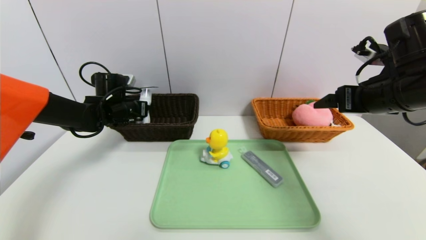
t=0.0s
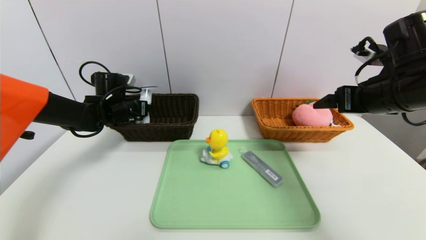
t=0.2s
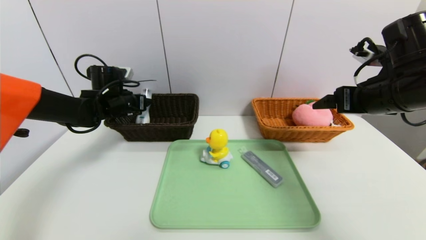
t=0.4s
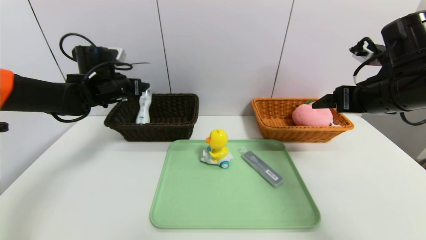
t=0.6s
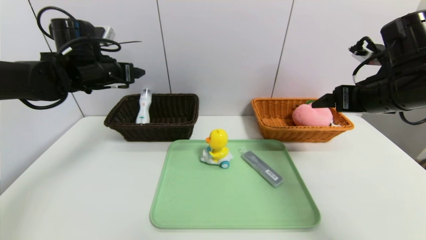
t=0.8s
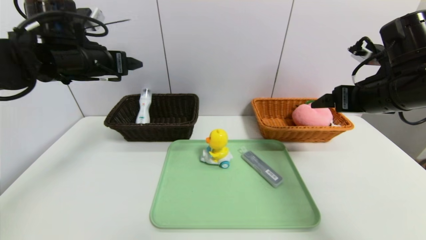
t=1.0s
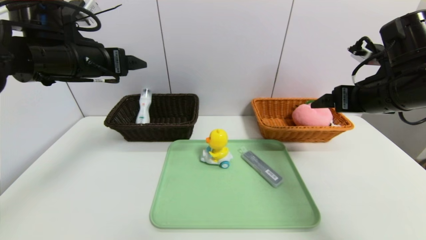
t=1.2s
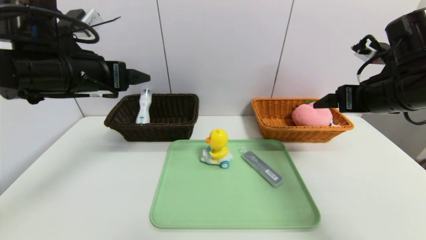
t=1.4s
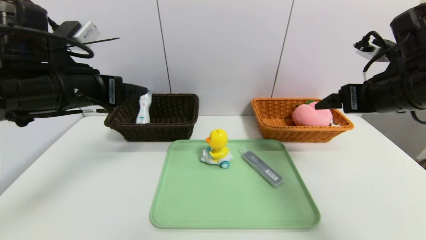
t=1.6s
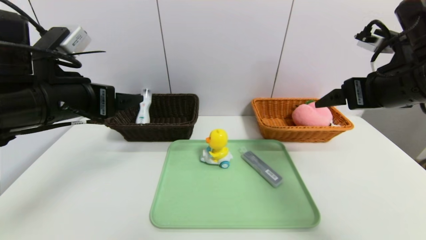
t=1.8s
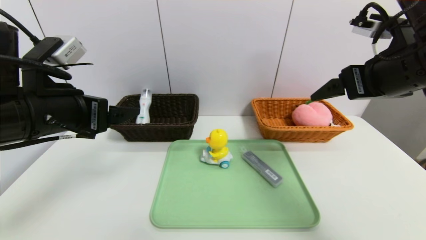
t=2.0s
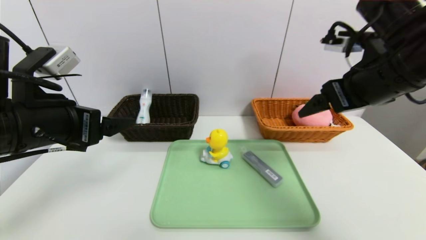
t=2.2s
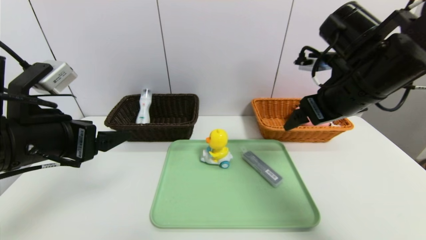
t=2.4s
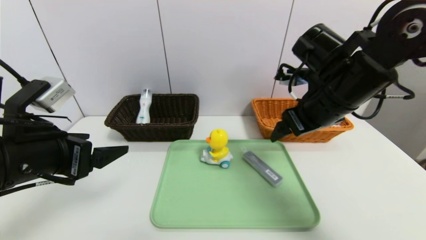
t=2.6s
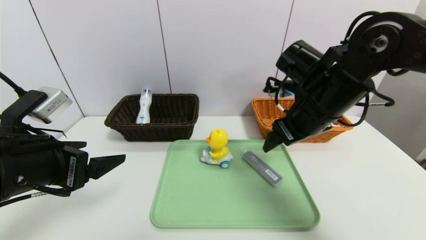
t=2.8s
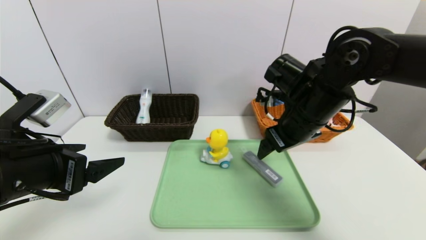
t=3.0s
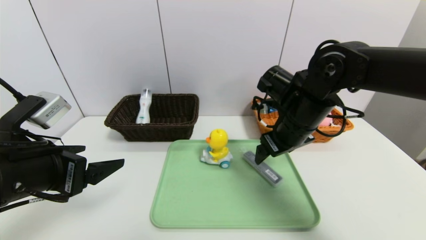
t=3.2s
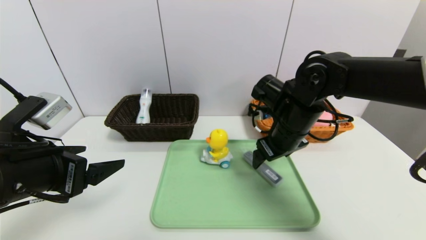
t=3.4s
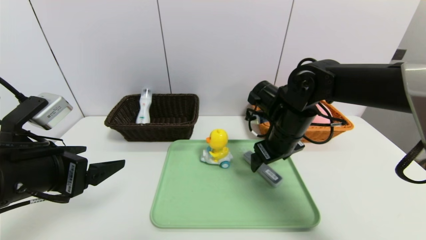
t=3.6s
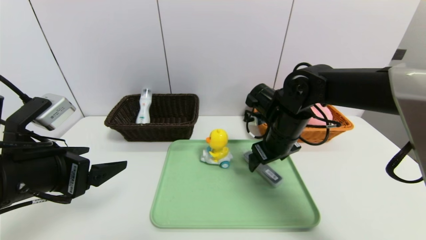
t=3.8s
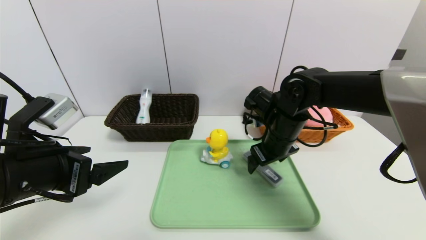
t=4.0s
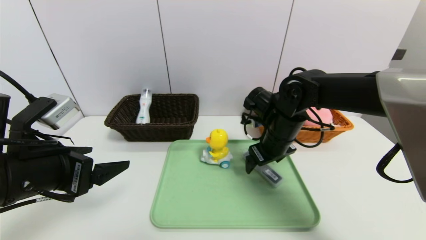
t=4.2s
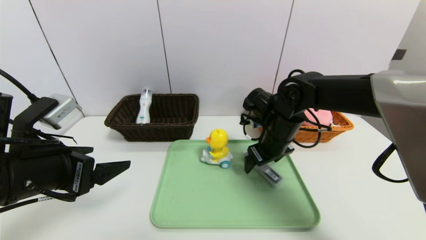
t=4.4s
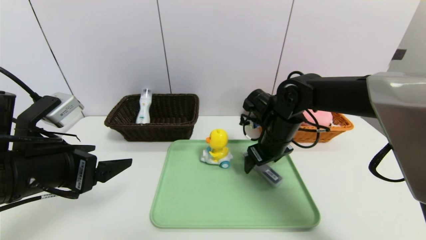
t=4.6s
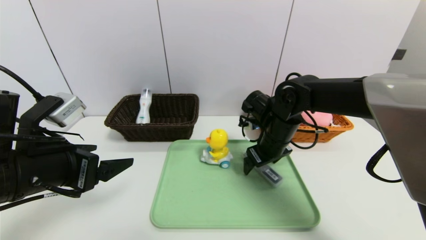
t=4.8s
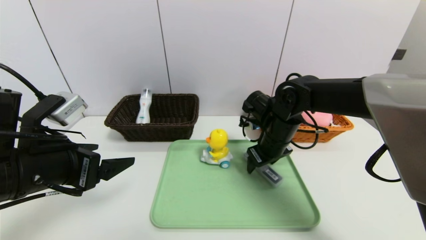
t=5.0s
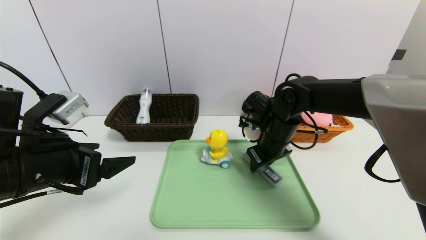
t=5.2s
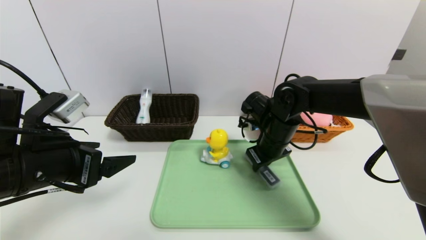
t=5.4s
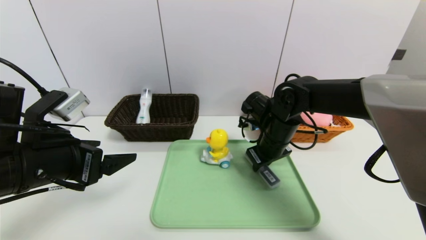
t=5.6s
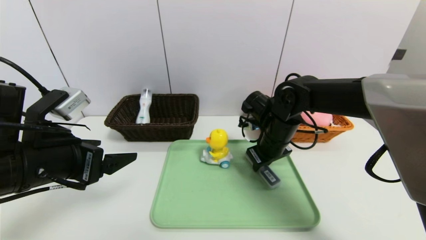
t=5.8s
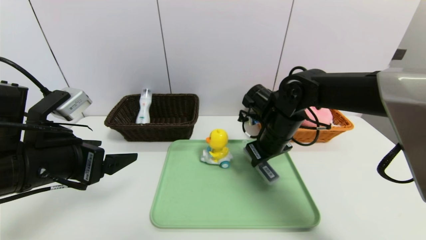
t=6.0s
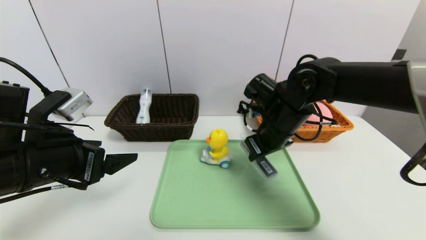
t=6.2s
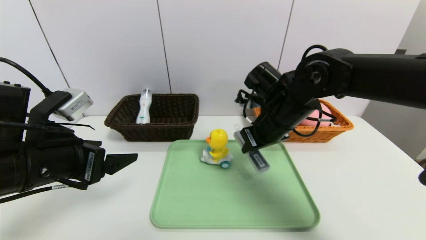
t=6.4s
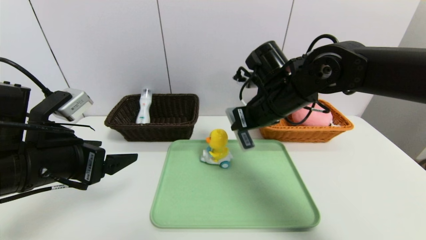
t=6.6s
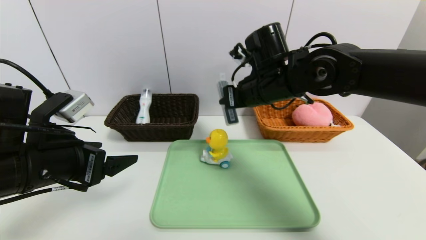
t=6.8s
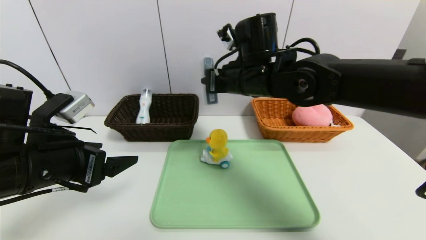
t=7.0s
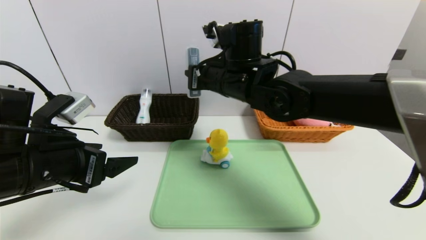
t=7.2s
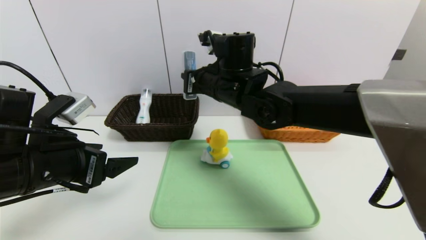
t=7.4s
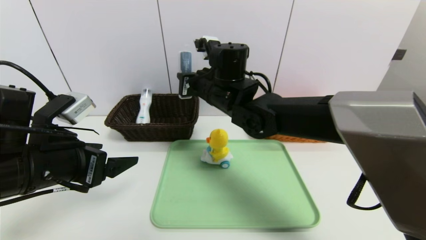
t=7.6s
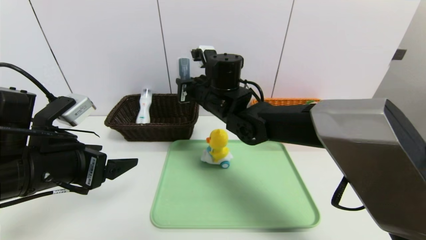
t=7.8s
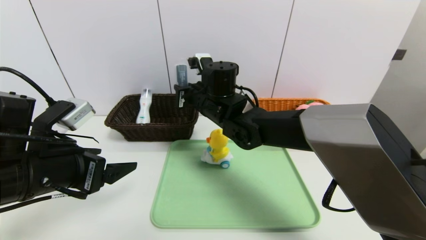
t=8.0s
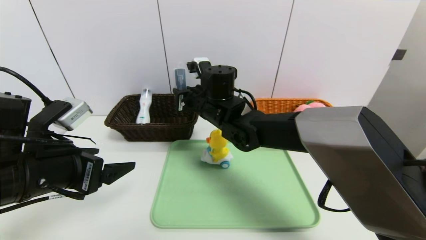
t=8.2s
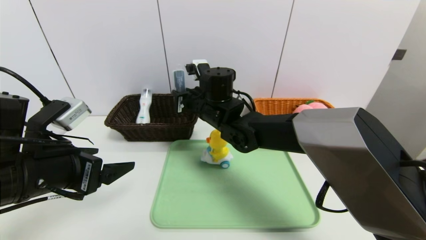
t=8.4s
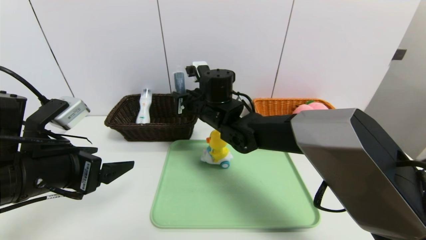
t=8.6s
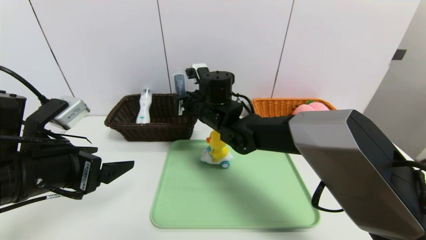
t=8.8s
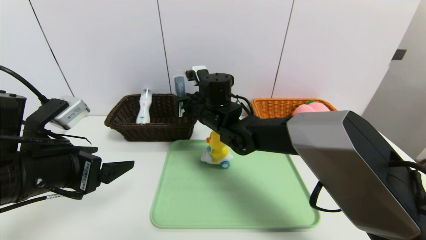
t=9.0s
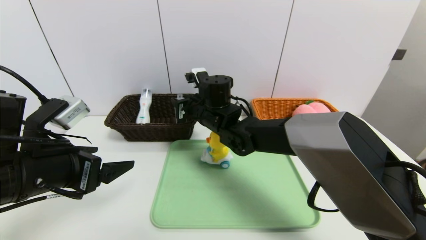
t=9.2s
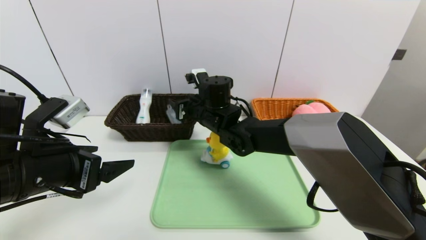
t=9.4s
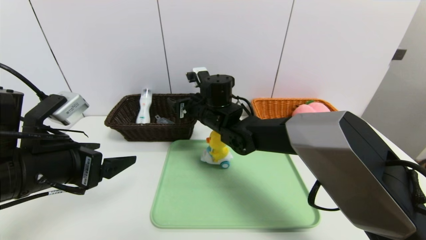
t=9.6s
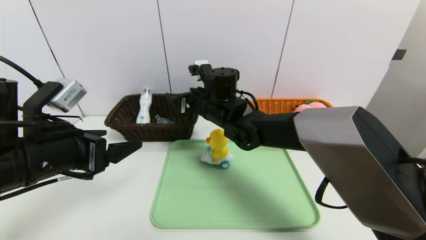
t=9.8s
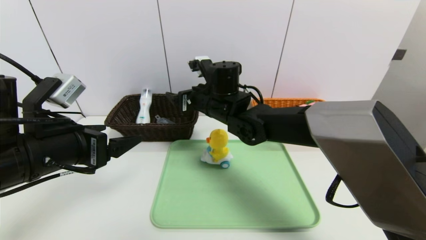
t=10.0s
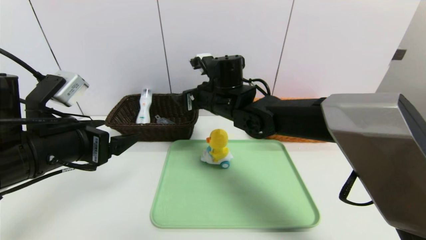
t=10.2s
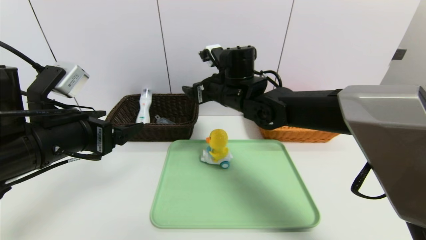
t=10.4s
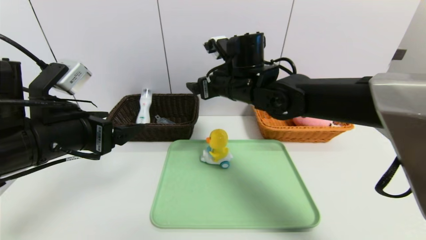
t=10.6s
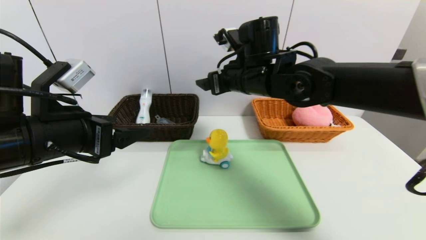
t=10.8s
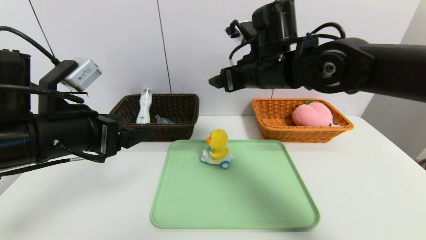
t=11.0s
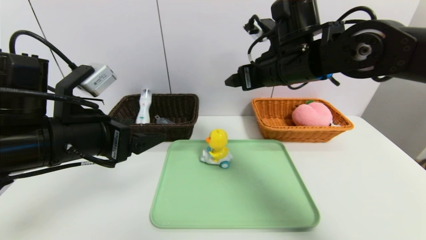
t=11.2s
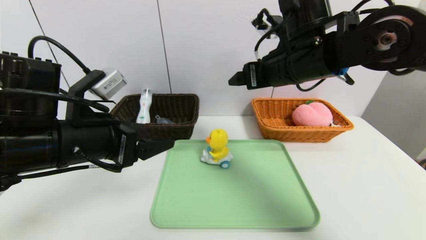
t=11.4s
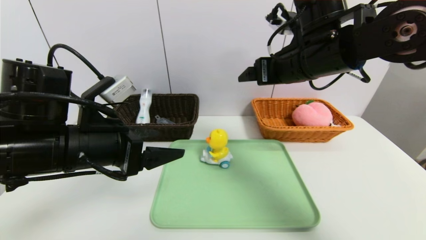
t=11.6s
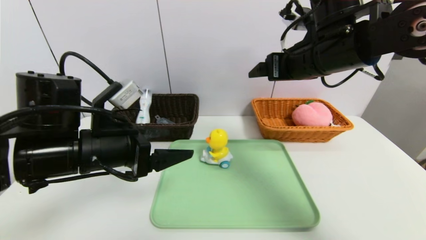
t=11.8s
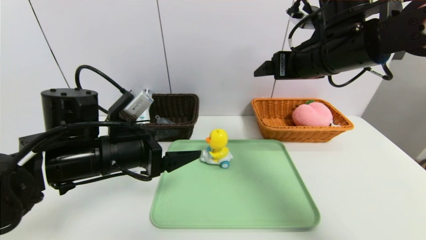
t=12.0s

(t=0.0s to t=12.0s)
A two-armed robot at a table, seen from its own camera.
Task of the whole recording: place the food in the right basket with the right gripper, and place the non food items in the left basket with the left gripper.
Step, t=0.6s - t=9.6s: Grasp the compass and put it in the left basket.
t=0.0s - t=1.6s: The left gripper travels backward and upward by some 25 cm, and opens up.
t=1.6s - t=3.0s: The left gripper moves backward and downward, about 10 cm, while the right gripper moves to the left and downward, about 15 cm.
t=3.0s - t=4.4s: The right gripper travels downward by approximately 10 cm.
t=4.4s - t=6.0s: The right gripper closes.
t=6.0s - t=7.6s: The right gripper shifts about 15 cm to the left and upward.
t=7.6s - t=9.0s: The right gripper is displaced downward by approximately 5 cm.
t=9.0s - t=10.4s: The right gripper travels upward and to the right by some 10 cm, and opens up.
t=10.4s - t=12.0s: The right gripper heads to the right, upward and backward, covering about 20 cm; the left gripper travels to the right and downward by approximately 10 cm.

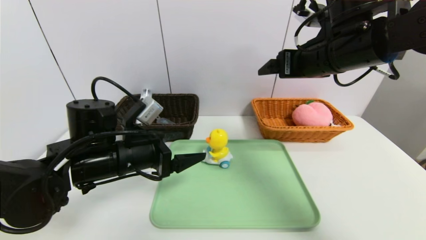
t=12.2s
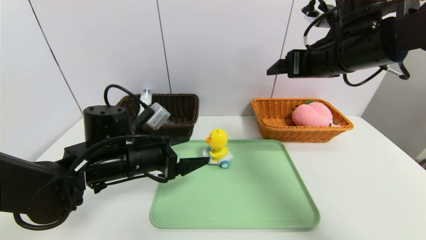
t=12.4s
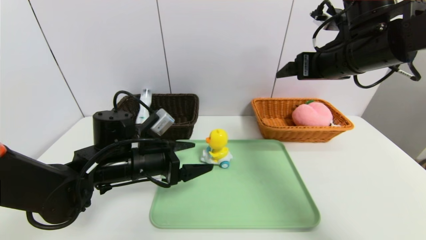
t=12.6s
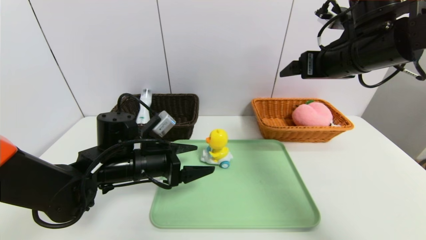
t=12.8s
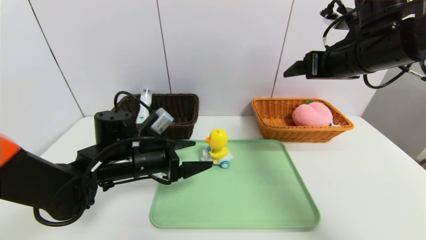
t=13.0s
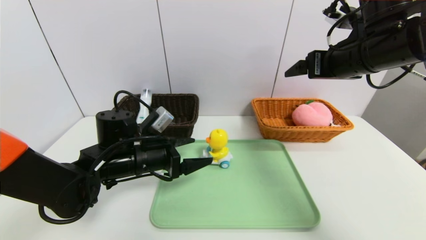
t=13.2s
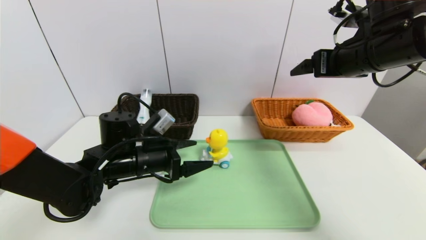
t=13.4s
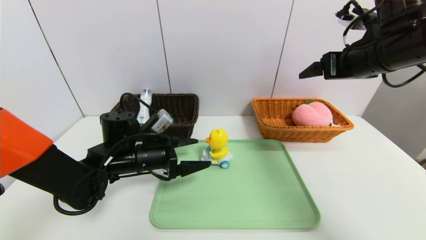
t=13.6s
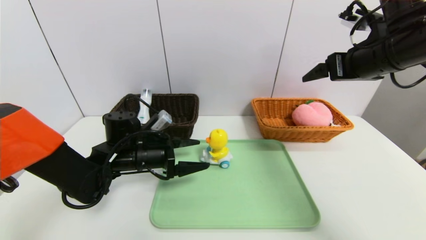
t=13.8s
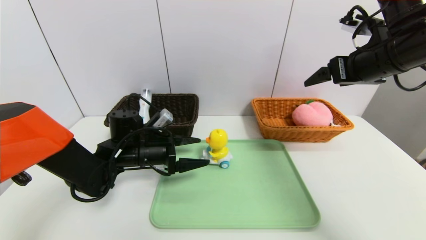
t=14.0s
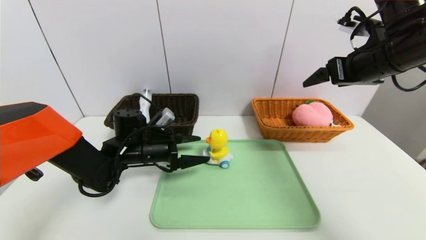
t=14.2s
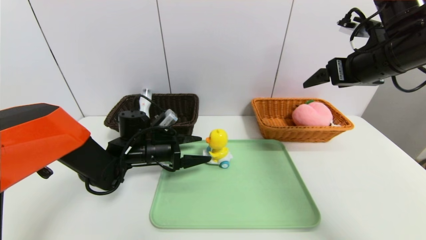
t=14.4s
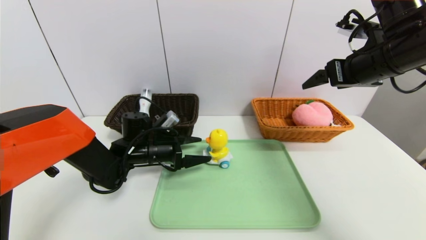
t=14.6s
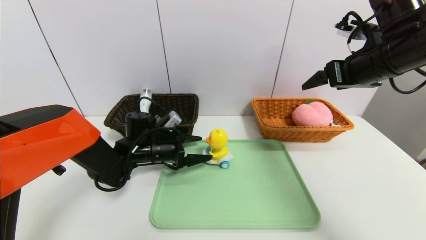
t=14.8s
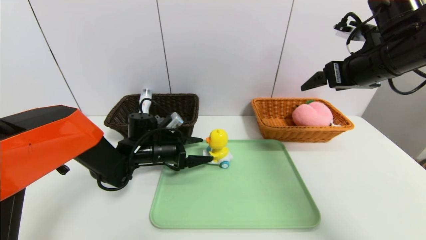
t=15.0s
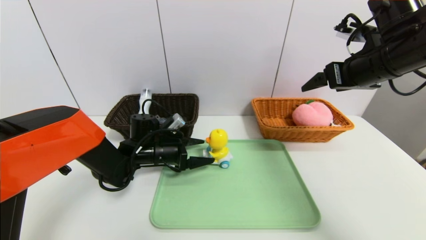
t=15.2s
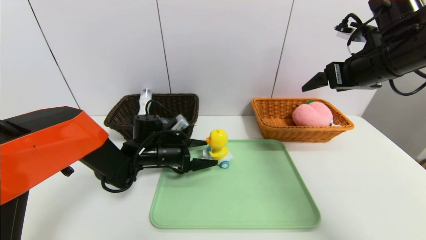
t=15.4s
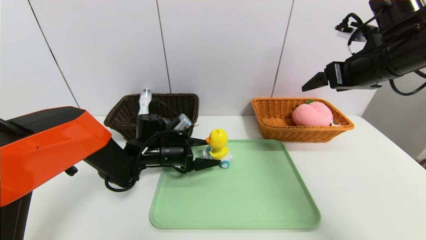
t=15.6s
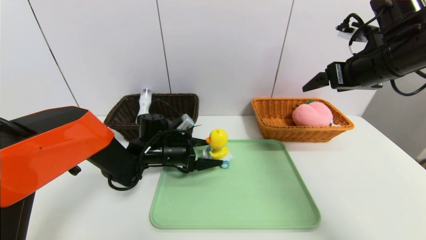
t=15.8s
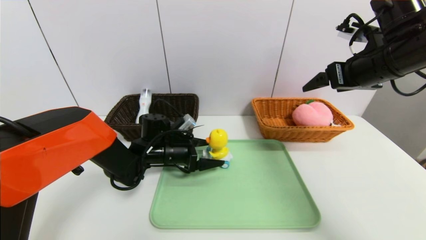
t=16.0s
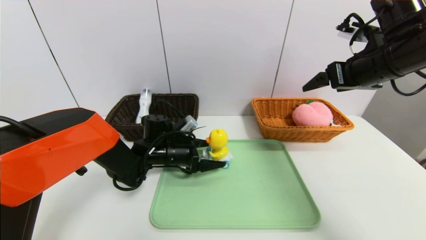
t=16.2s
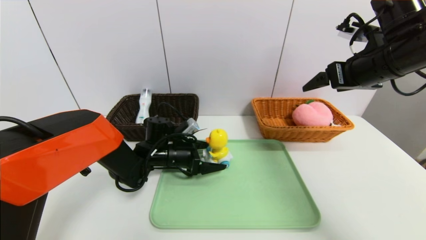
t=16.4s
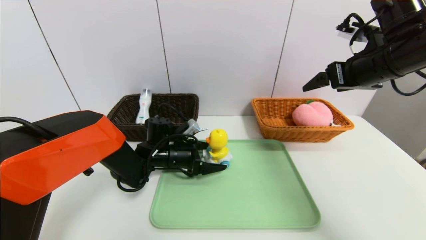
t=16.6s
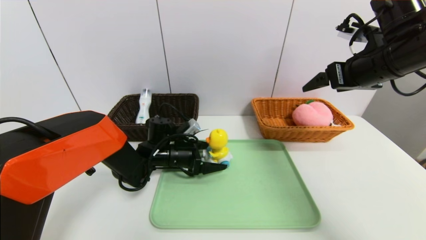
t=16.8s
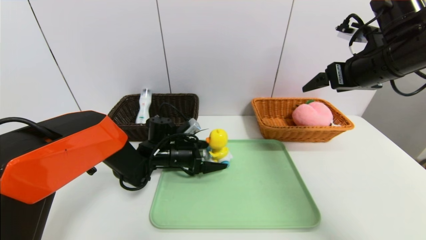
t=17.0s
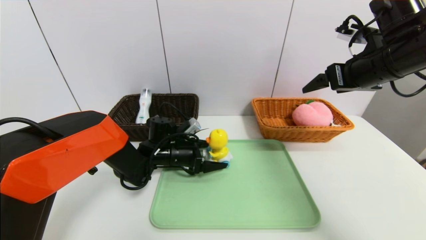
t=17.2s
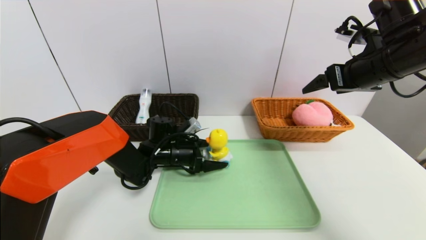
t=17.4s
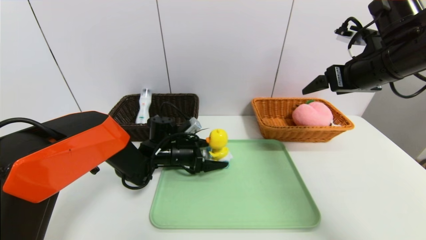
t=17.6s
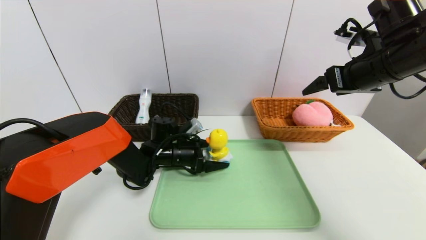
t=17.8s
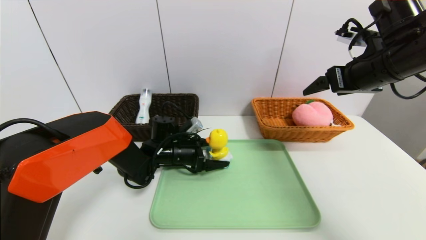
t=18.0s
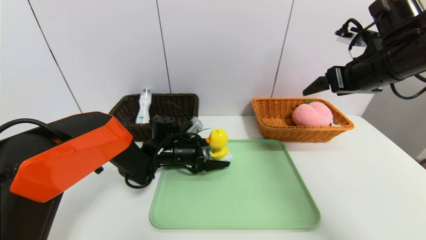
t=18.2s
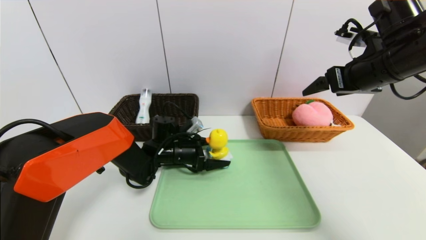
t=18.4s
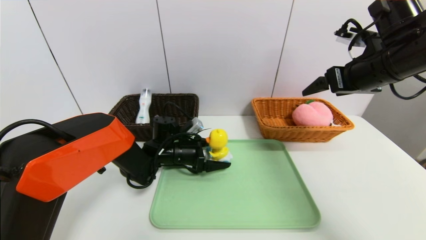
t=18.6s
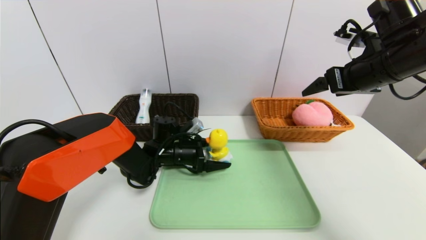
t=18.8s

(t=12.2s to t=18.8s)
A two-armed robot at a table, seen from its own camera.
Task of the whole recording: place the food in the right basket with the right gripper, and place the non food items in the left basket with the left gripper.
t=12.2s - t=13.8s: The left gripper travels forward and downward by approximately 10 cm. Meanwhile the right gripper moves to the right, some 10 cm.
t=13.8s - t=15.4s: The left gripper ends up about 5 cm from where it was.
t=15.4s - t=18.8s: The grippers make only small movements.
